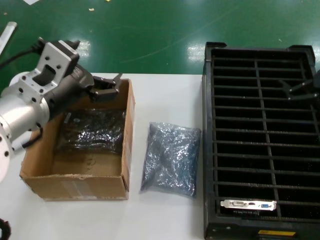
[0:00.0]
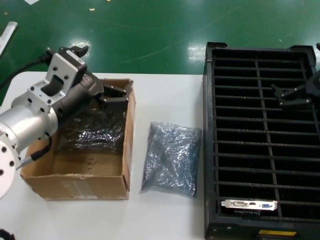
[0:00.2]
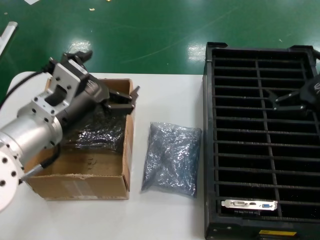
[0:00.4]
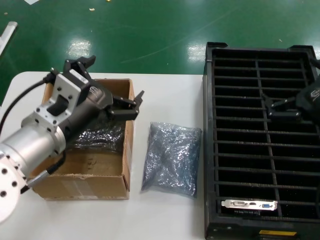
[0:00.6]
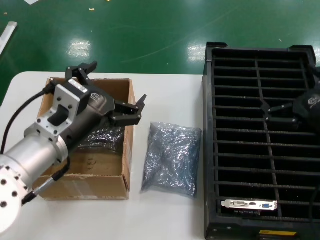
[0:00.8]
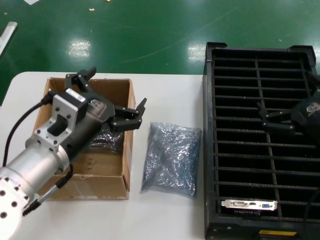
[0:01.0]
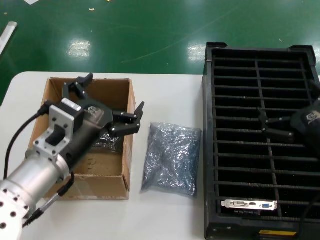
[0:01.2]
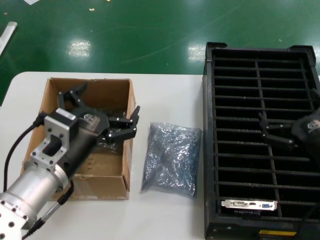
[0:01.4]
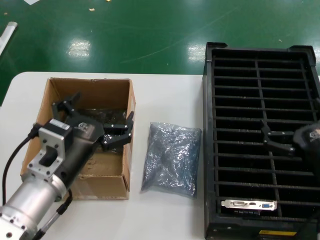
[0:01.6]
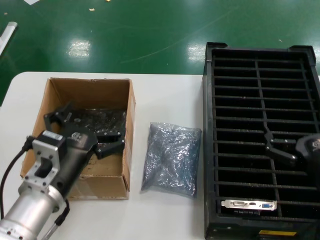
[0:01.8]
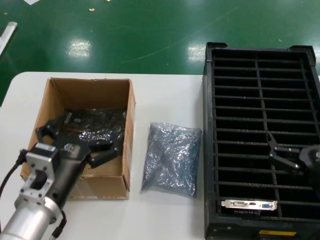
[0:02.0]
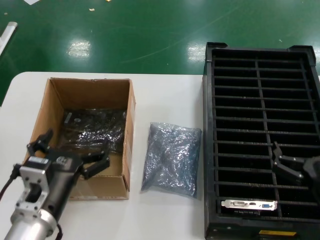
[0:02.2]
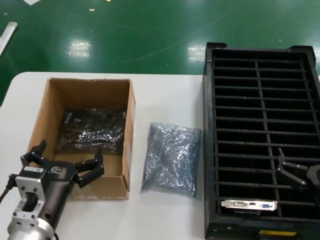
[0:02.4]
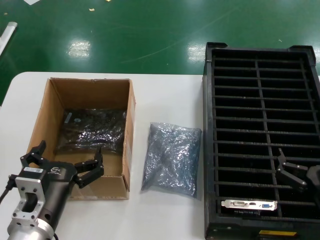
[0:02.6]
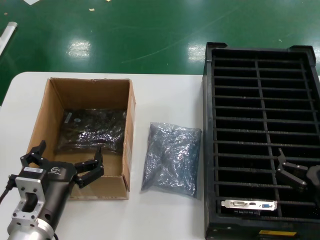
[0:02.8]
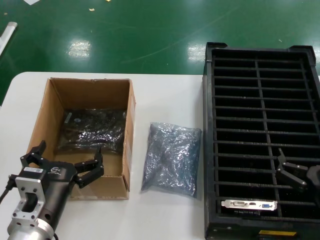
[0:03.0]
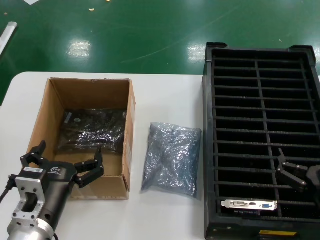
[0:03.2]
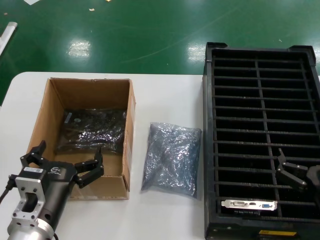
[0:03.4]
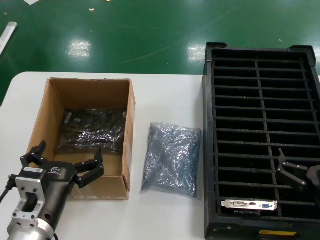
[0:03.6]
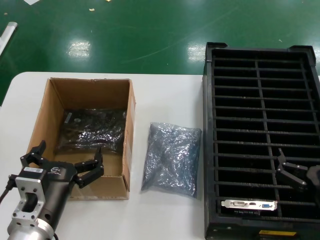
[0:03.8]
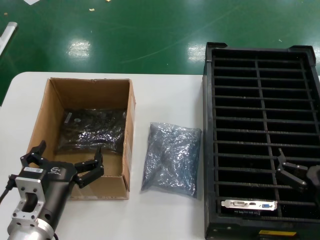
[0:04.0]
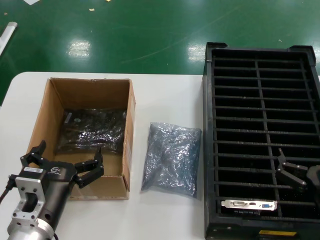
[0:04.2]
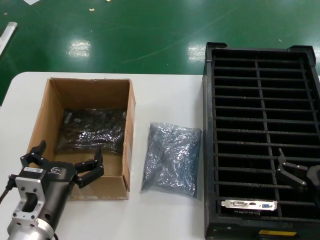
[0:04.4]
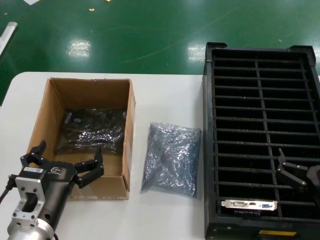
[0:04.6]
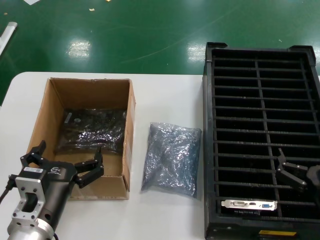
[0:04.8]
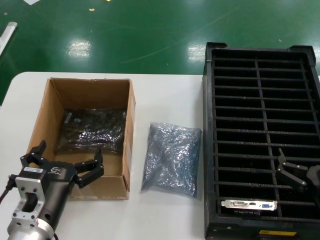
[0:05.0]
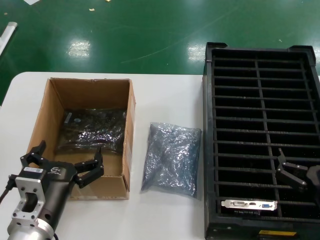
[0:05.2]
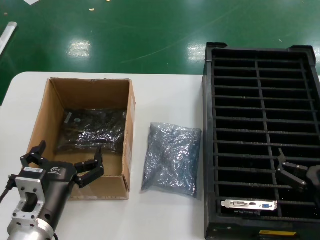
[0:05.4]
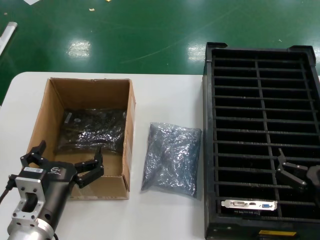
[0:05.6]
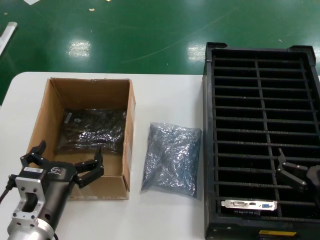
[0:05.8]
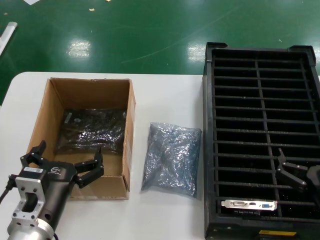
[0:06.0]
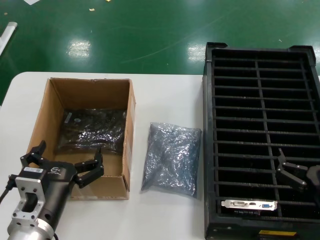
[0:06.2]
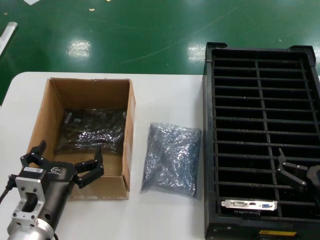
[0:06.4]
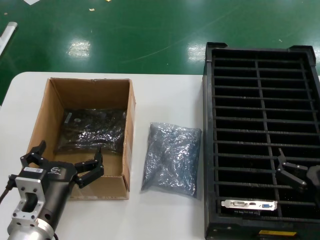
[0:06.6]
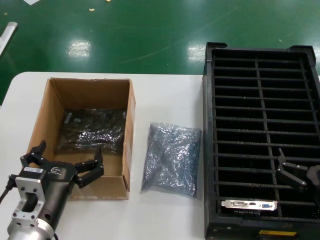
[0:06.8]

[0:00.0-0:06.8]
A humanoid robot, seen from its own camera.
Task of the whole recording: take out graphics card from box remove packaging put into black container.
0:00.0 to 0:01.4: The right hand goes some 15 cm downward and backward. The left hand is displaced downward by some 10 cm.
0:01.4 to 0:02.8: The left hand goes roughly 10 cm downward. Meanwhile the right hand goes about 10 cm downward and backward.
0:02.8 to 0:06.8: The two hands keep their place.
